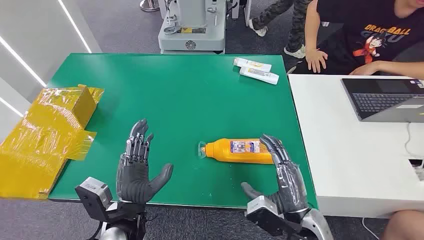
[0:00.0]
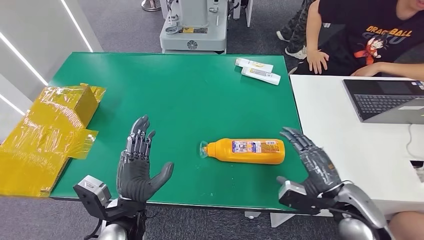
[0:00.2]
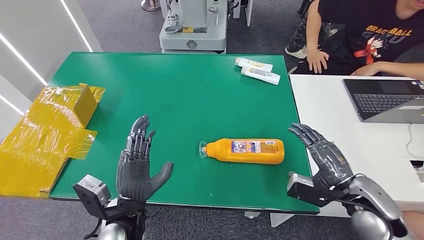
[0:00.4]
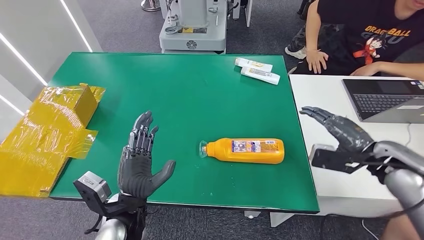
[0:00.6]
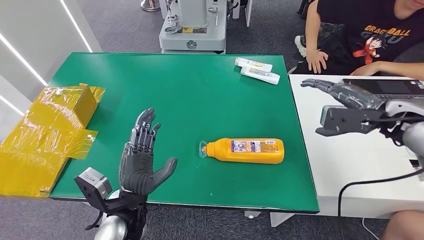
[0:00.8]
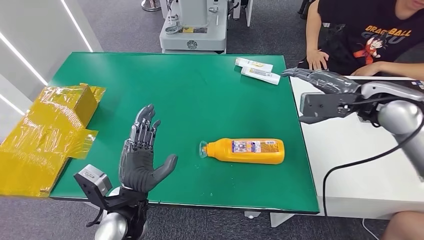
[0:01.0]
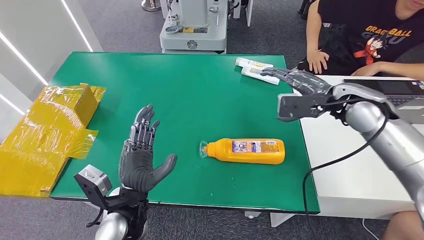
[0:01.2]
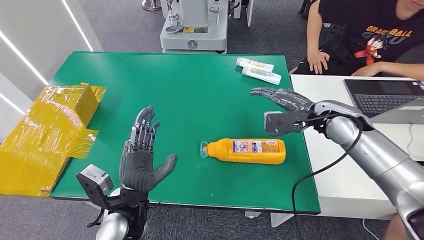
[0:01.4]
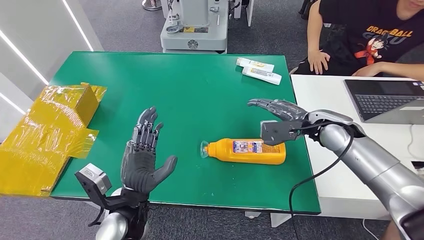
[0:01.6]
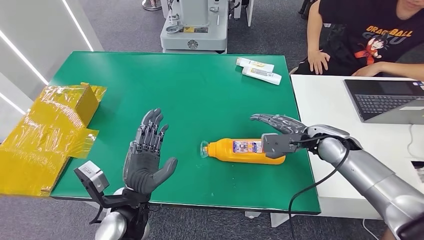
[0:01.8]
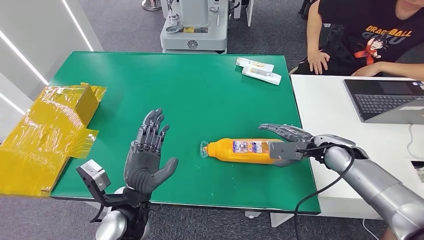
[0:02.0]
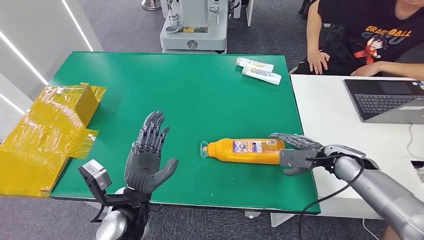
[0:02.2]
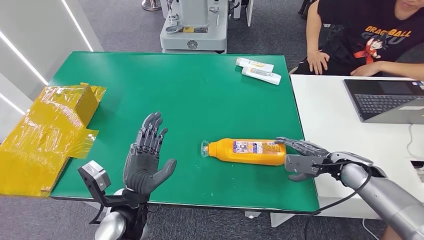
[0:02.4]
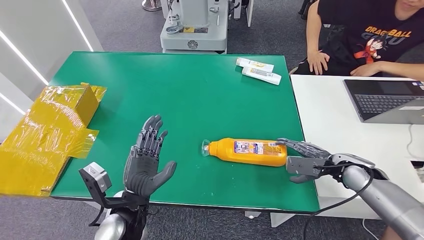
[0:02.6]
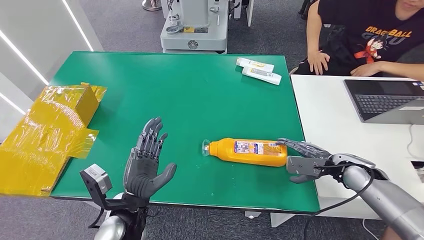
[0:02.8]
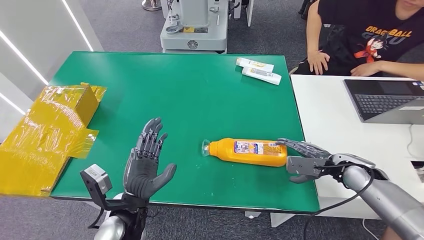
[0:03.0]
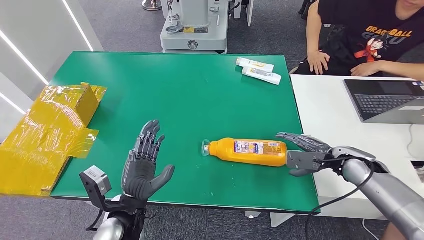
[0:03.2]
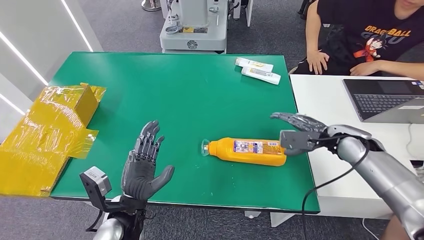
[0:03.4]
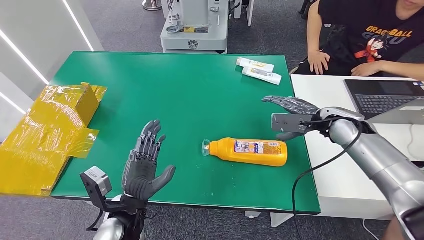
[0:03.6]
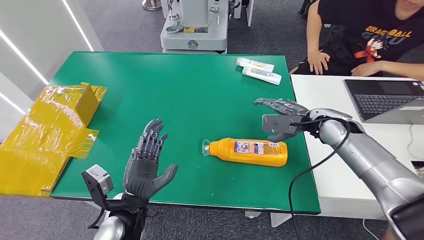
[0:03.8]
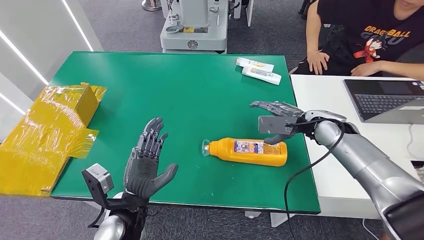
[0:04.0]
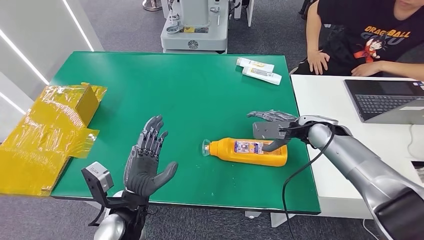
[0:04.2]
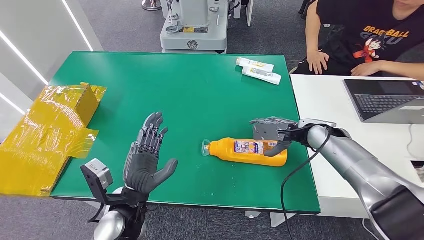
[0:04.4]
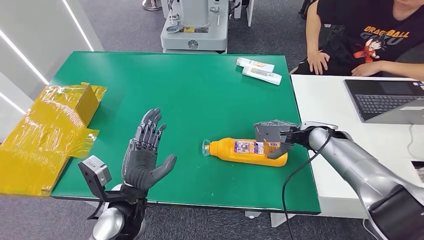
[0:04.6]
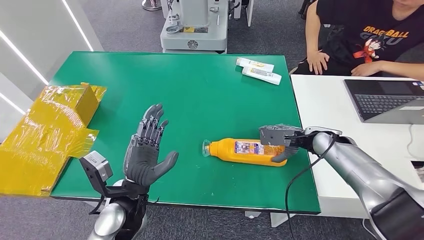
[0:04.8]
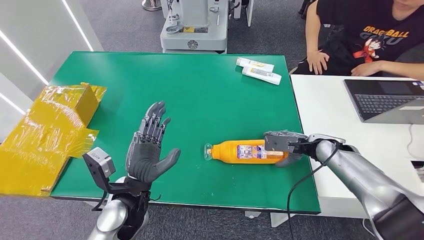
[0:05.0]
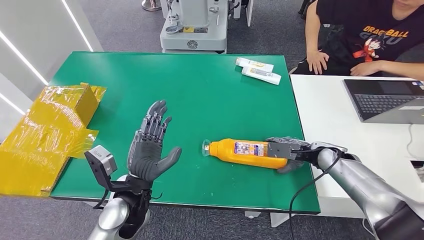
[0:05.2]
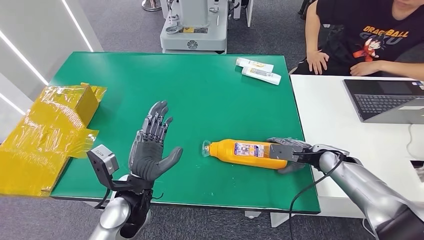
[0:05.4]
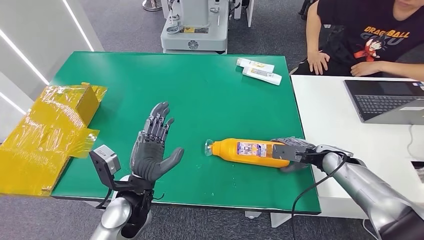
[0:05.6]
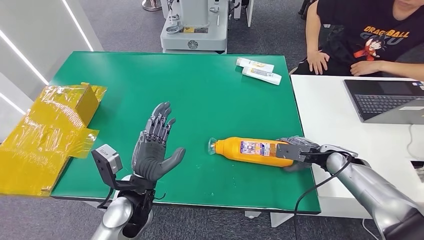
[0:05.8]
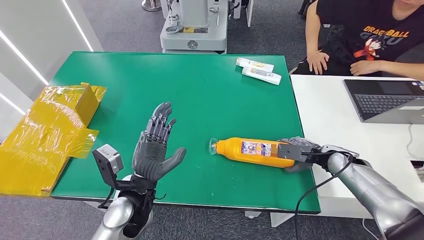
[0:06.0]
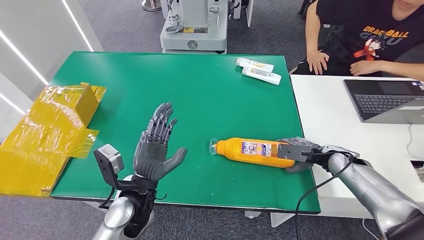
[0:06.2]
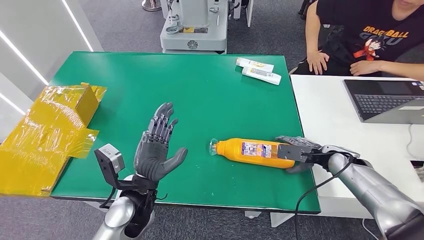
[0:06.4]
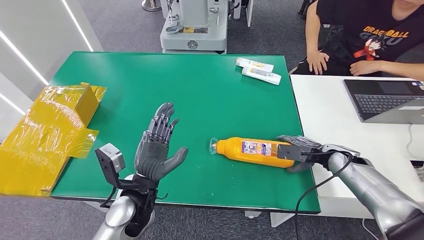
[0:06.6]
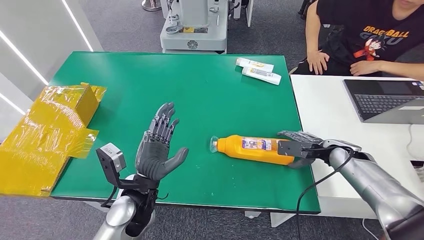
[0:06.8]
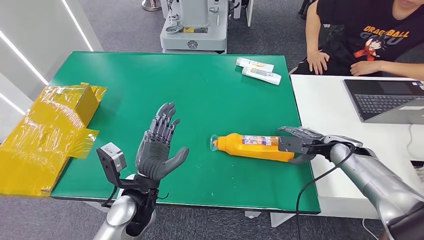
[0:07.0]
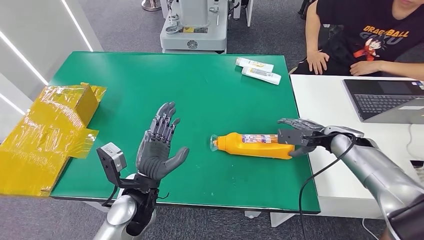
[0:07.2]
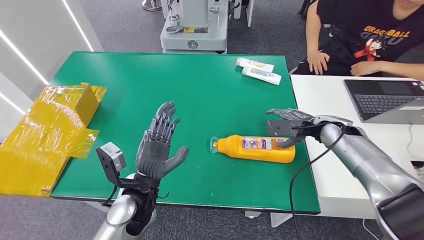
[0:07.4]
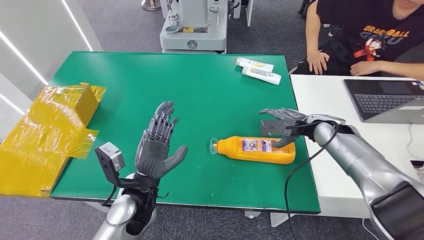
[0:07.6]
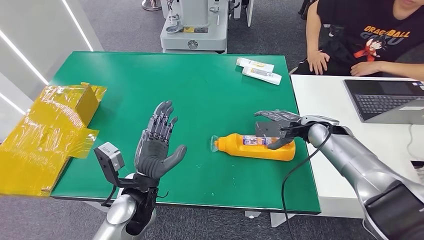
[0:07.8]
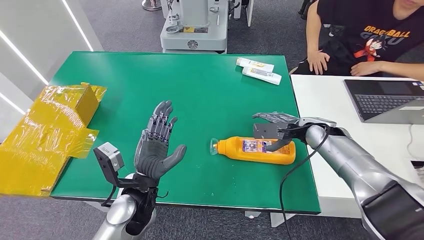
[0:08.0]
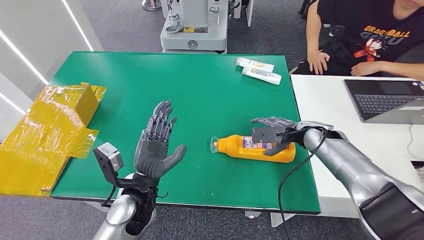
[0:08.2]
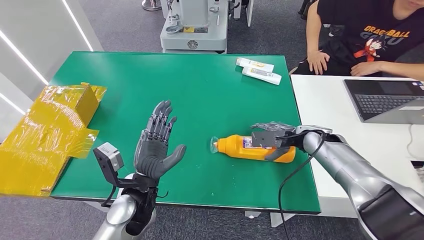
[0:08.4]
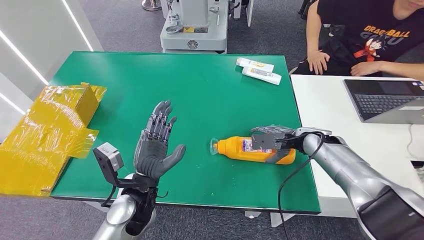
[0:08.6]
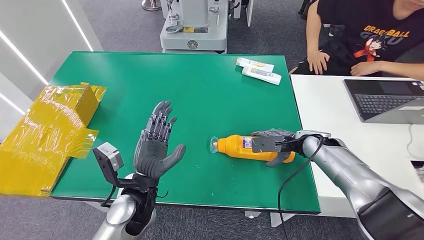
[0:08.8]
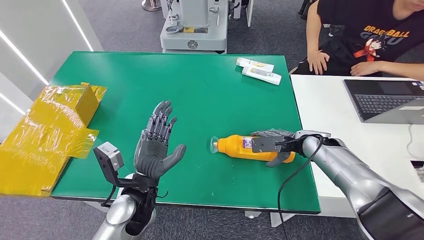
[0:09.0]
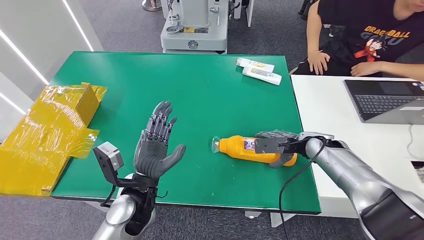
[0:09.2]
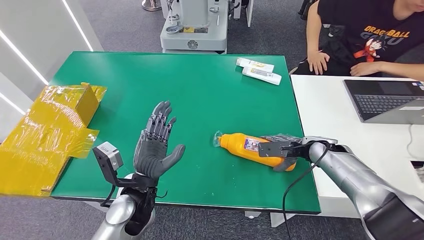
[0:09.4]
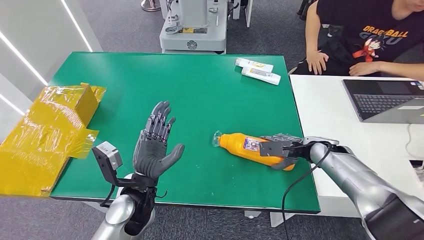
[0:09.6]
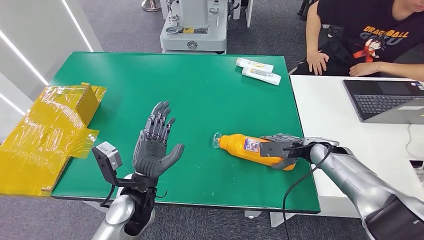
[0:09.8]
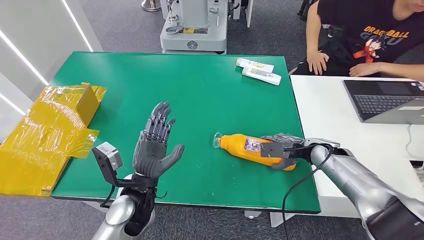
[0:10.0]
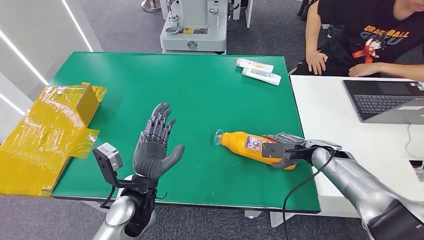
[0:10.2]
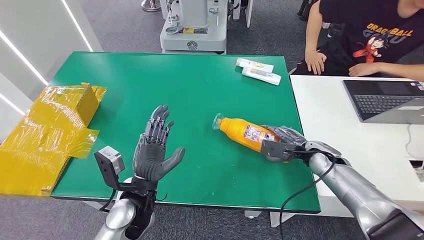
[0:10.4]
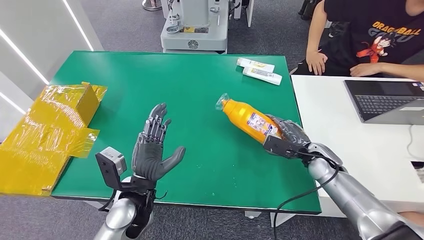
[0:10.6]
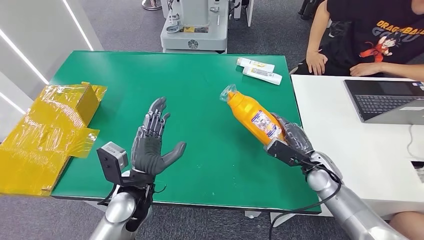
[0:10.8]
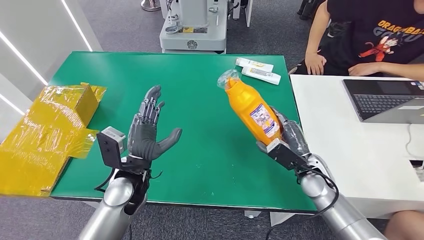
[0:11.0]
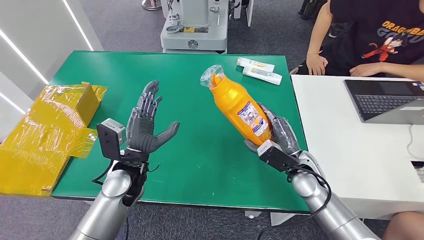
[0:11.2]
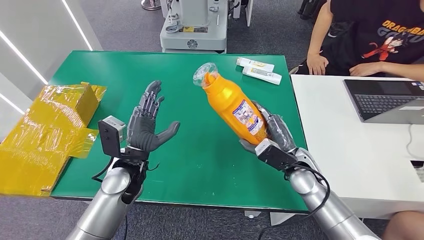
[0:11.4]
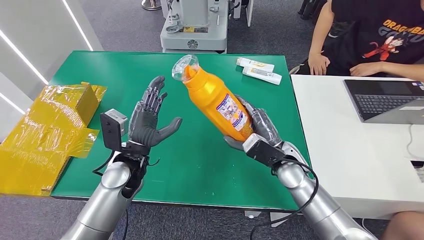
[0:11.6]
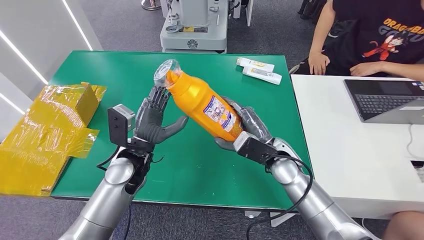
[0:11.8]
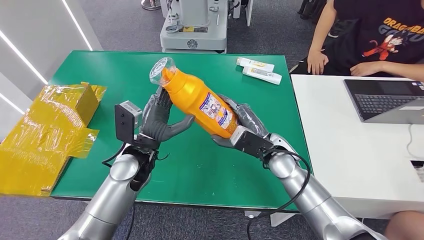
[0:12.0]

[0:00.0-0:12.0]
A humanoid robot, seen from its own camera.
Step, 0:00.0 to 0:10.8: Pick up the bottle from the table.
0:01.6 to 0:03.0: The right hand travels downward, to the right and backward by approximately 15 cm.
0:03.0 to 0:04.4: The right hand moves forward, to the left and upward, approximately 15 cm.
0:04.4 to 0:06.0: The right hand heads to the right and downward, covering approximately 10 cm.
0:06.0 to 0:07.6: The right hand heads upward, to the left and forward, covering about 10 cm.
0:07.6 to 0:09.0: The right hand shifts by roughly 5 cm.

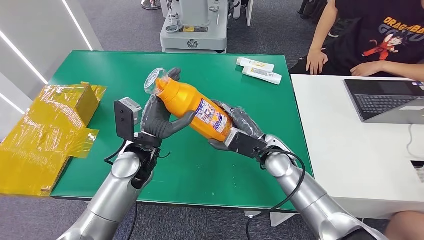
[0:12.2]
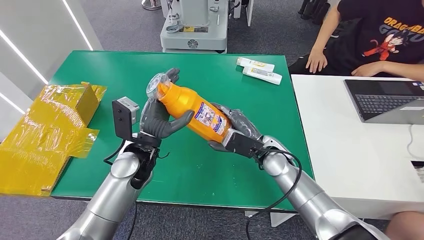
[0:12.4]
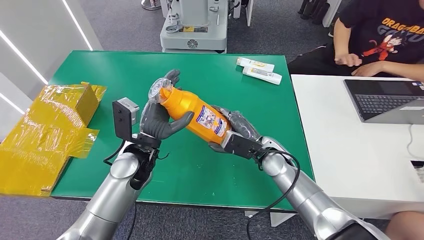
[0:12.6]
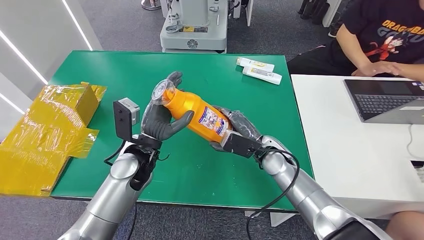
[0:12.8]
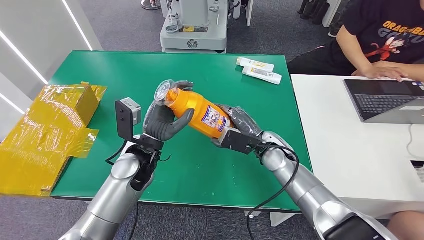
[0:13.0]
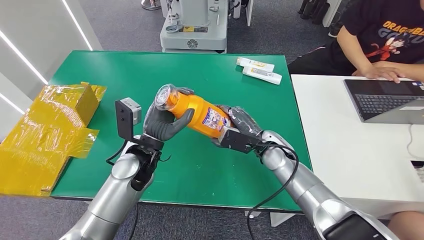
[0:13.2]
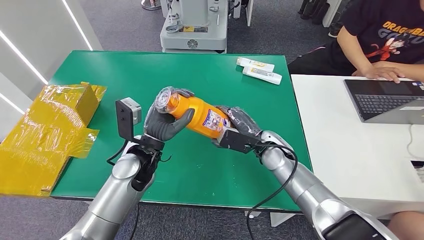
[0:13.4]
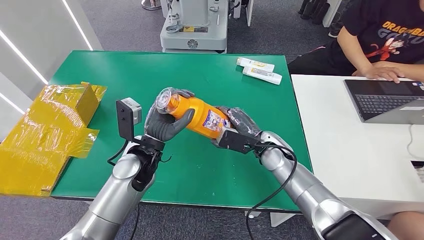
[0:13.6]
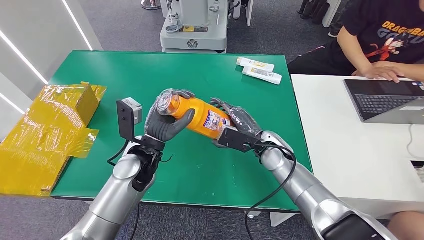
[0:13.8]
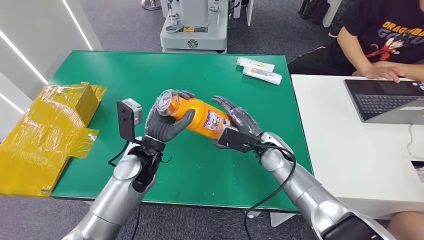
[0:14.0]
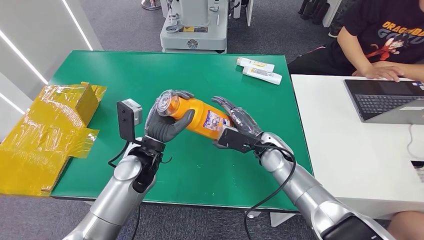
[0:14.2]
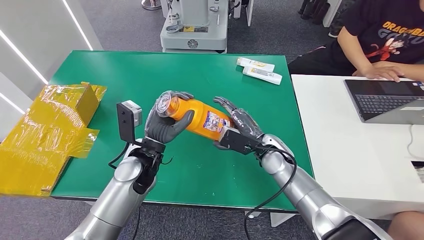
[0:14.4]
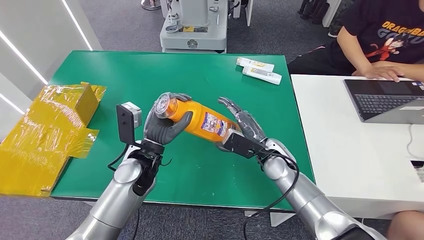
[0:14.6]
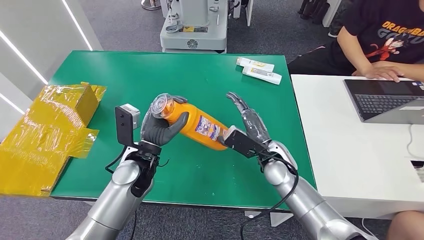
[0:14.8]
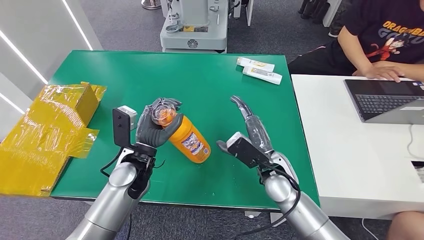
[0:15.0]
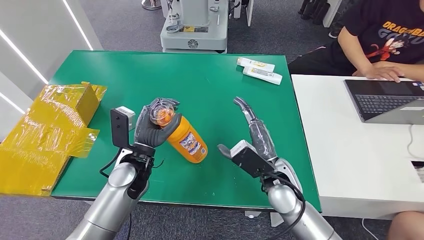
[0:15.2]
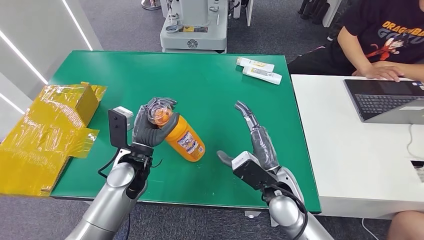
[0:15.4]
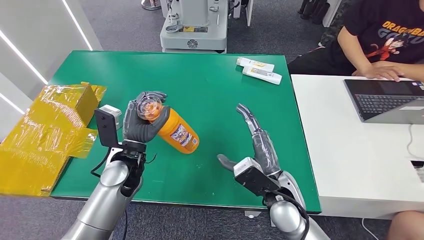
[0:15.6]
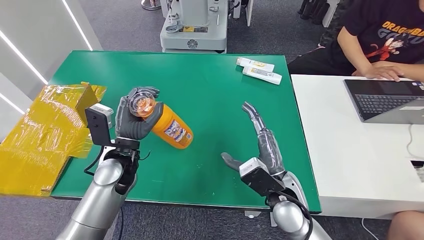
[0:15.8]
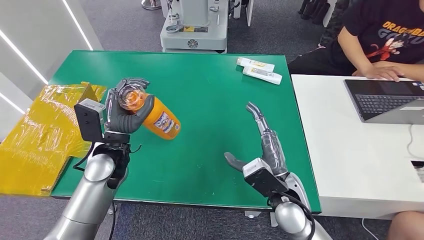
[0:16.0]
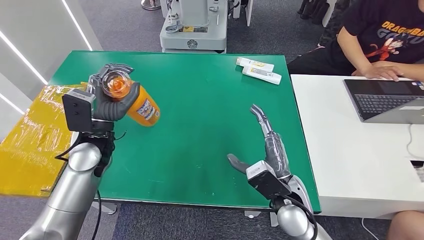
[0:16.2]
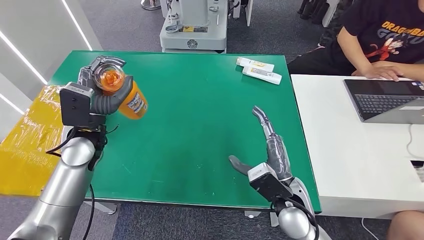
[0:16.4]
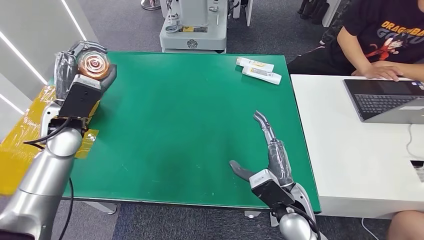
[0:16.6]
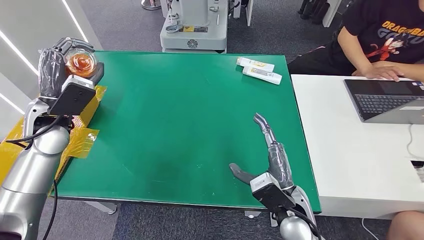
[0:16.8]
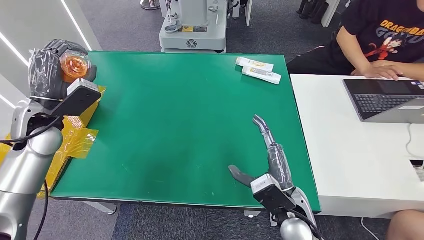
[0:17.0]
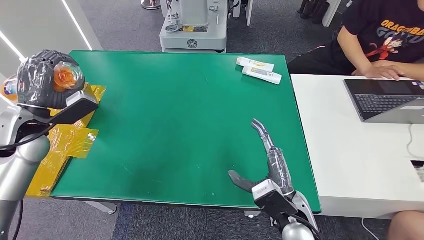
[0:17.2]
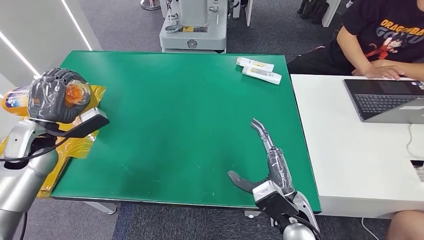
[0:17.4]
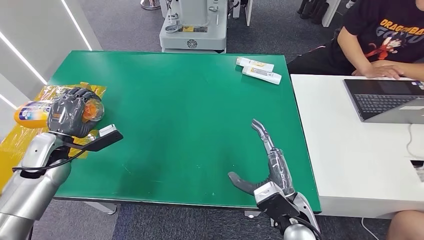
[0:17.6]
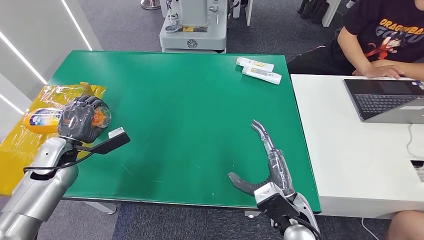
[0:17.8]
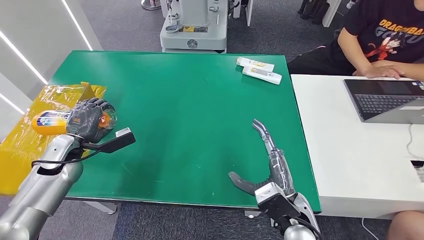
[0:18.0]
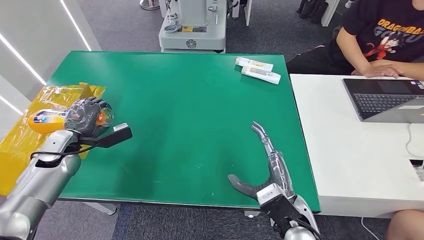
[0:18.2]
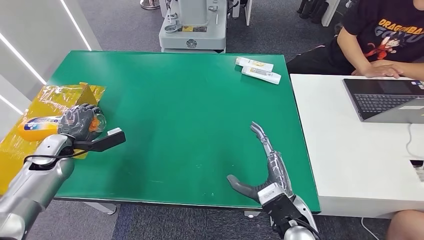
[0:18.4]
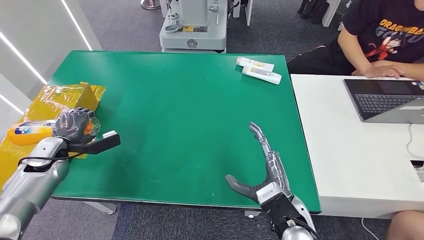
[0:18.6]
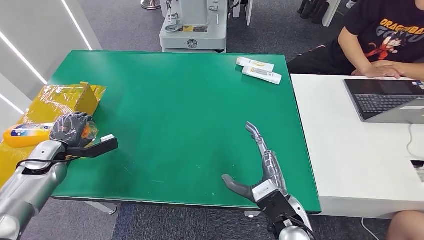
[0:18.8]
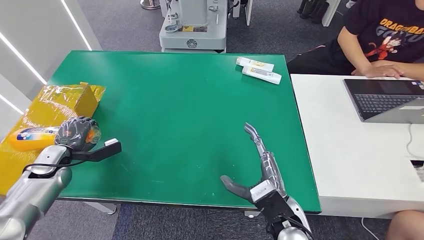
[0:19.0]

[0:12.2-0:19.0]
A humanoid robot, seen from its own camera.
0:12.2 to 0:13.6: The hands move only a little.
0:13.6 to 0:15.0: The right hand moves backward, roughly 5 cm.
0:15.0 to 0:16.2: The right hand heads backward, covering about 5 cm; the left hand shifts about 10 cm to the left and upward.
0:16.2 to 0:17.6: The left hand travels to the left by about 15 cm.
0:17.6 to 0:19.0: The left hand shifts approximately 10 cm downward.
